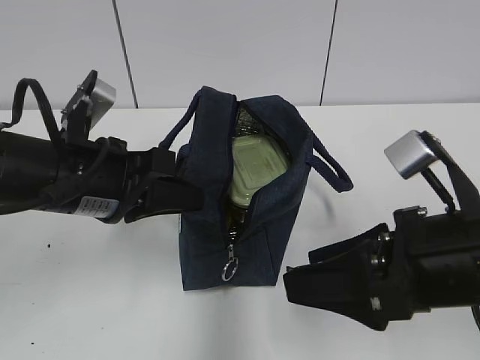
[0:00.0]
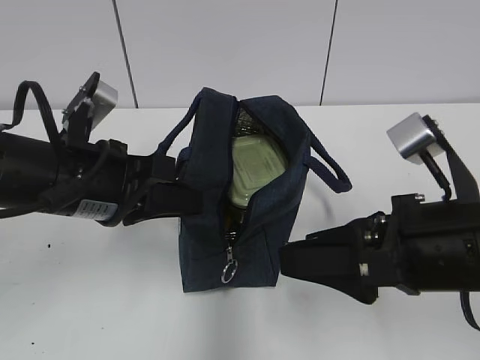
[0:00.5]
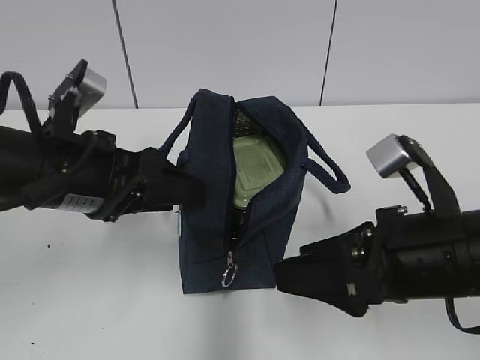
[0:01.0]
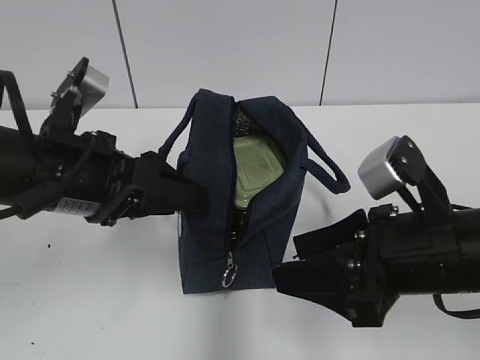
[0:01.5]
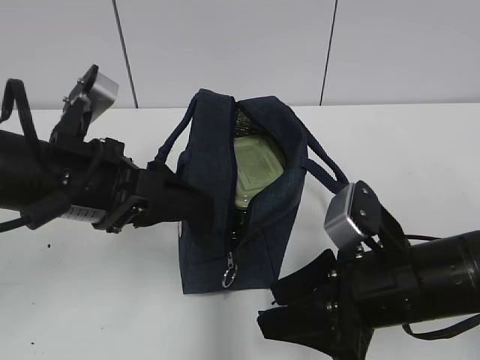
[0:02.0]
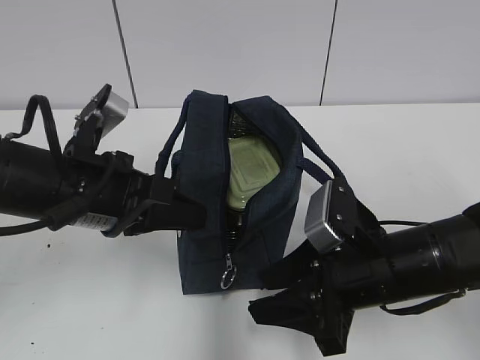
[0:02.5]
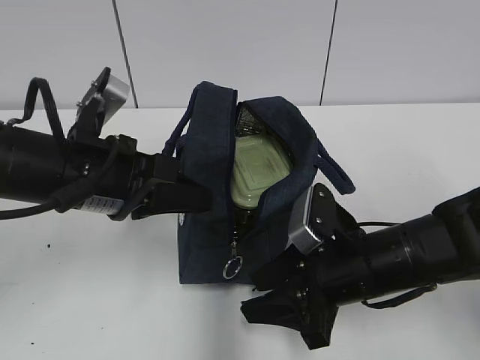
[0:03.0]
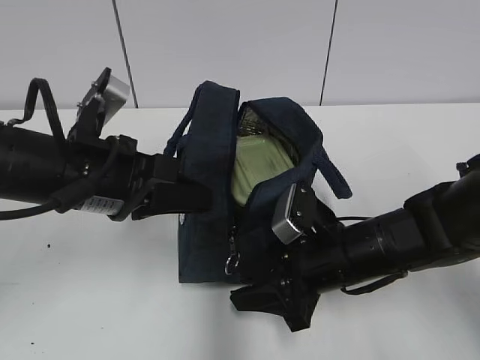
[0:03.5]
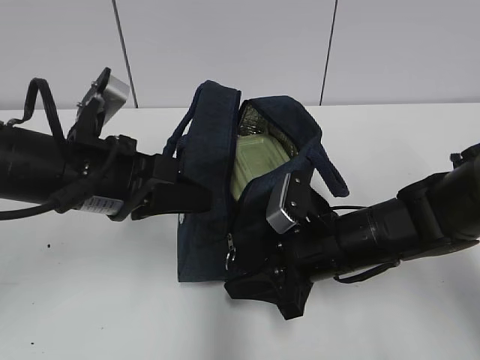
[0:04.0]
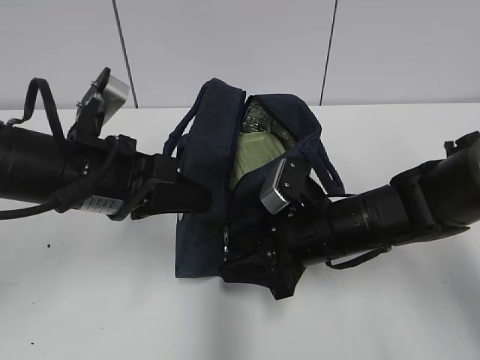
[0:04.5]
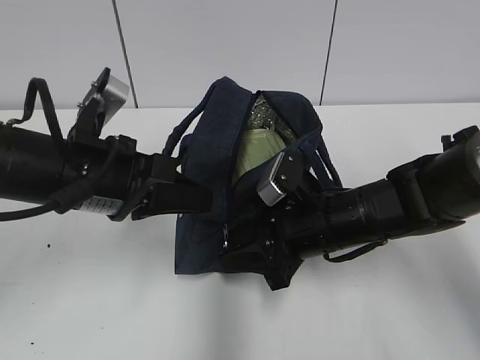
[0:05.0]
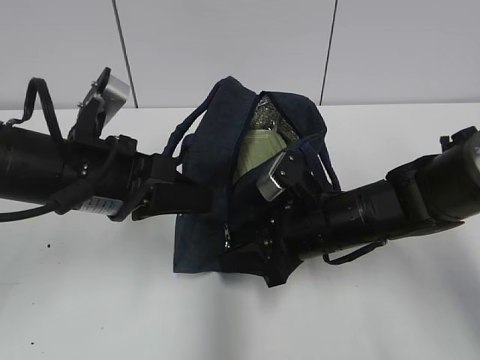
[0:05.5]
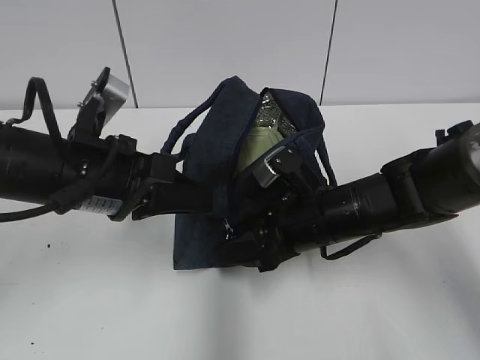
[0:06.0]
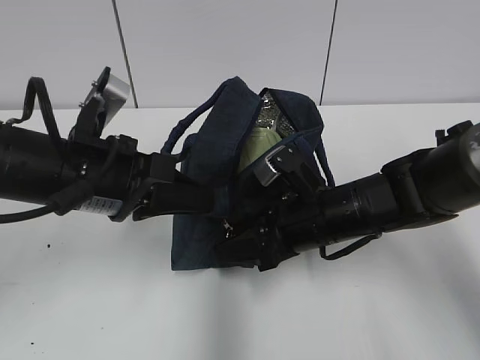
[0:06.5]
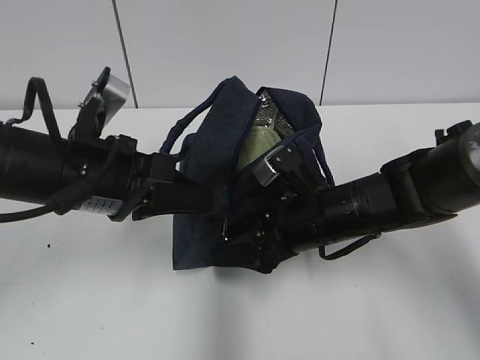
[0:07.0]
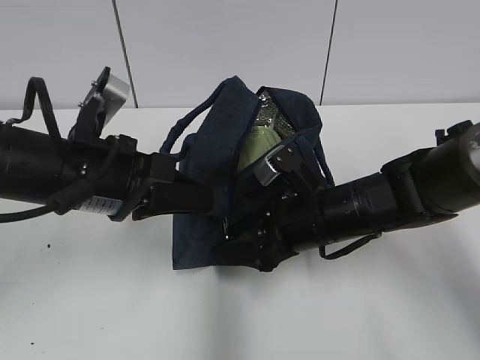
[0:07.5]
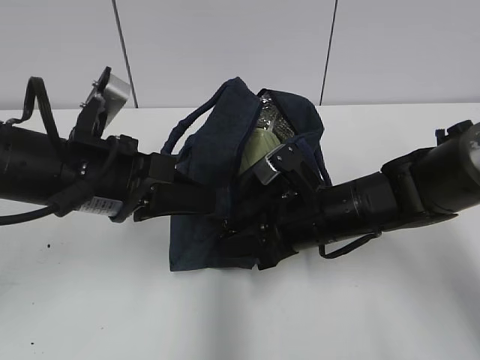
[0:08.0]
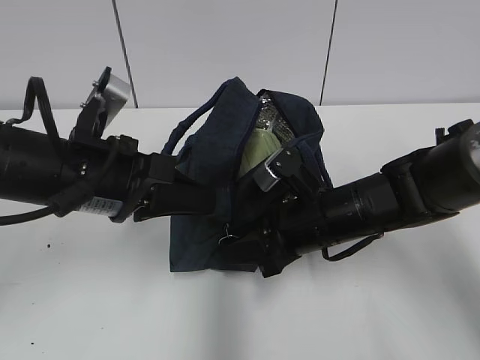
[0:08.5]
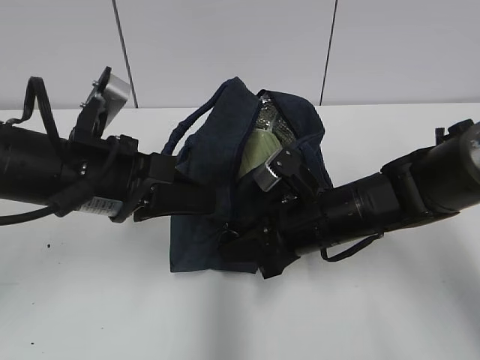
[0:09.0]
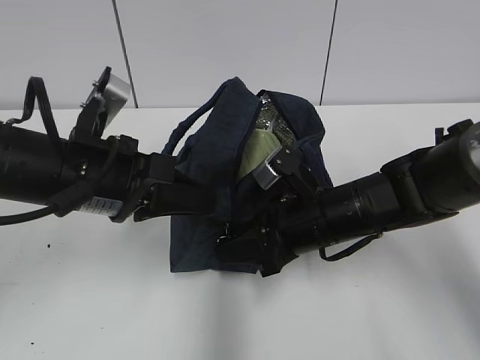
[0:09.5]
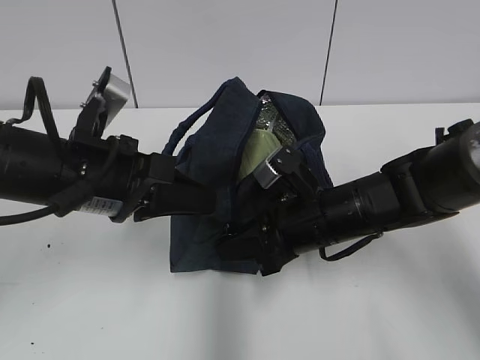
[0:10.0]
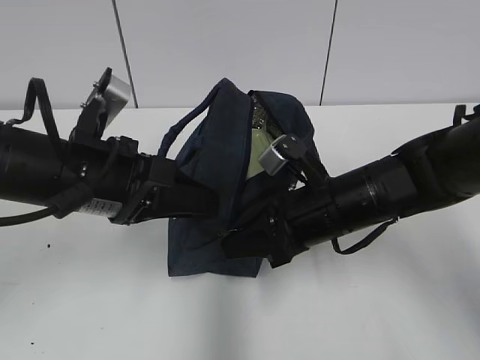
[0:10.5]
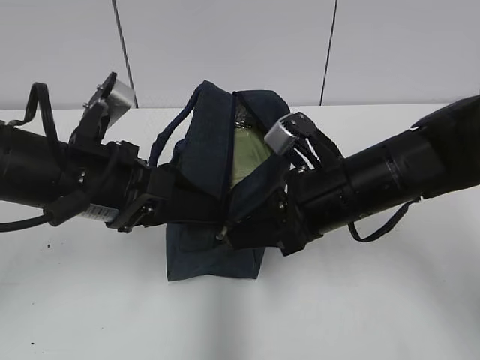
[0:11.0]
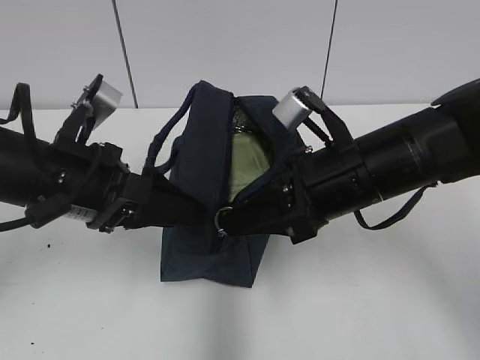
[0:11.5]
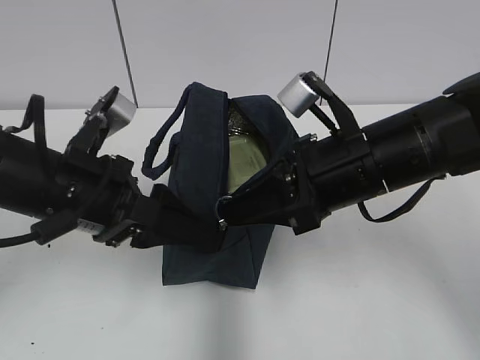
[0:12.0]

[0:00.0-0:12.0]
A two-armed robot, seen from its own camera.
Step, 0:00.0 to 0:02.5: Grab the lunch bag with your left hand.
0:00.0 to 0:02.0: The right gripper heads downward, covering roughly 5 cm; the left gripper opens.
0:02.0 to 0:04.0: The left gripper closes. The right gripper shifts some 10 cm forward.
0:04.0 to 0:06.0: There are only small adjustments of the grippers.
0:06.0 to 0:08.0: Both grippers stay put.
0:08.0 to 0:10.0: Neither gripper changes place.
0:10.0 to 0:12.0: The right gripper shifts approximately 10 cm upward; the left gripper opens its fingers.

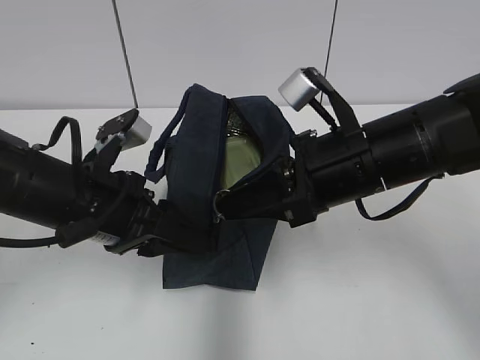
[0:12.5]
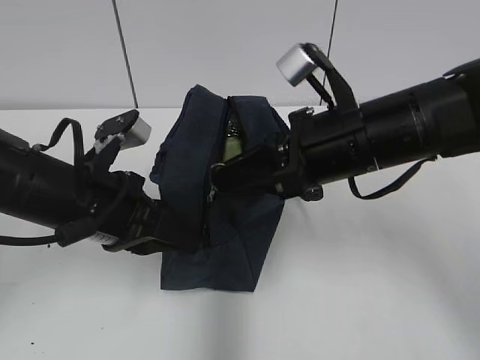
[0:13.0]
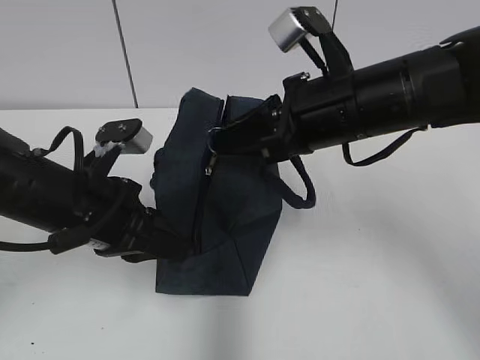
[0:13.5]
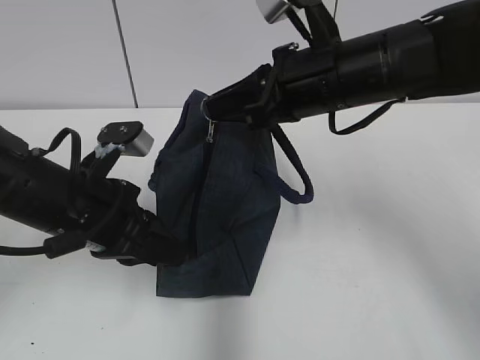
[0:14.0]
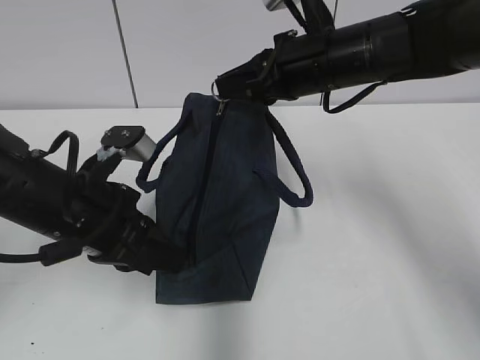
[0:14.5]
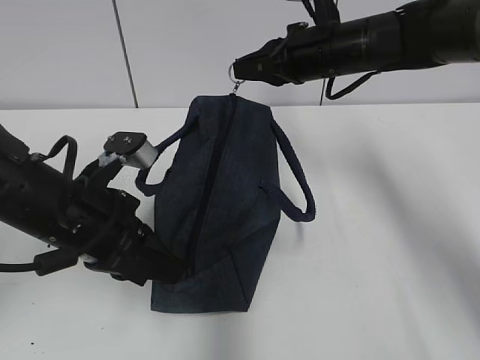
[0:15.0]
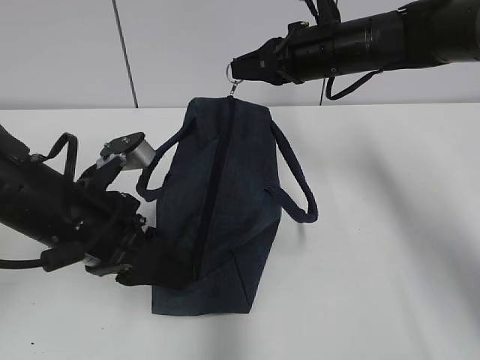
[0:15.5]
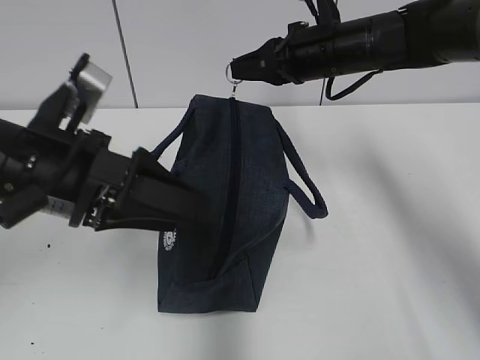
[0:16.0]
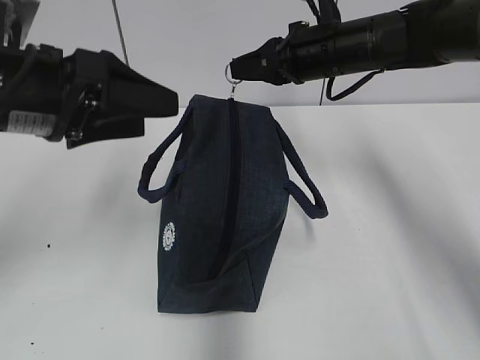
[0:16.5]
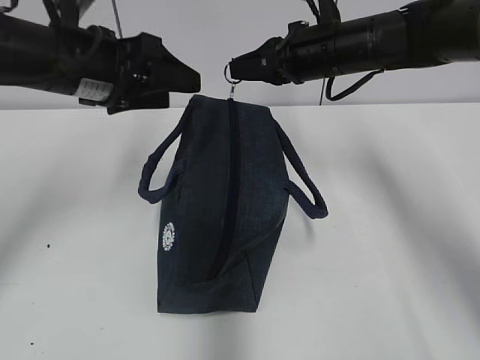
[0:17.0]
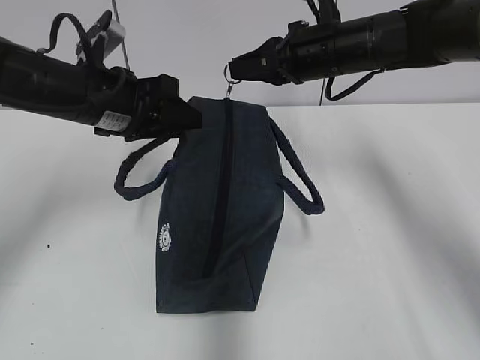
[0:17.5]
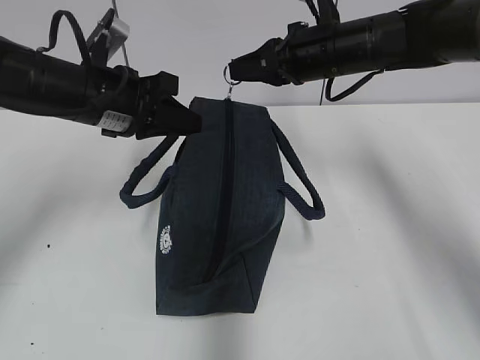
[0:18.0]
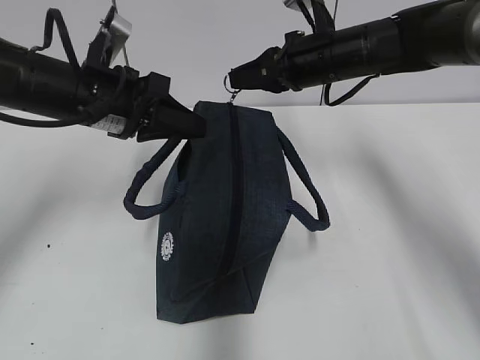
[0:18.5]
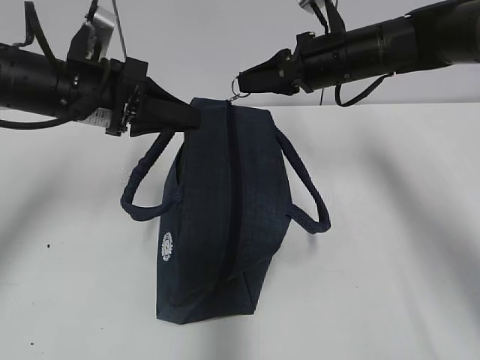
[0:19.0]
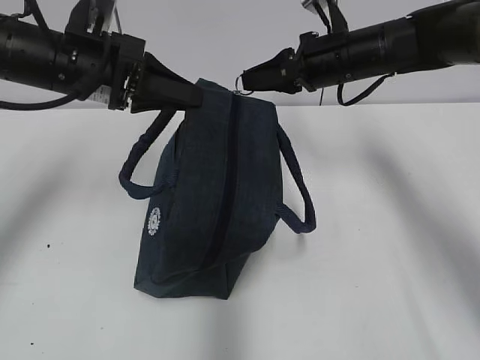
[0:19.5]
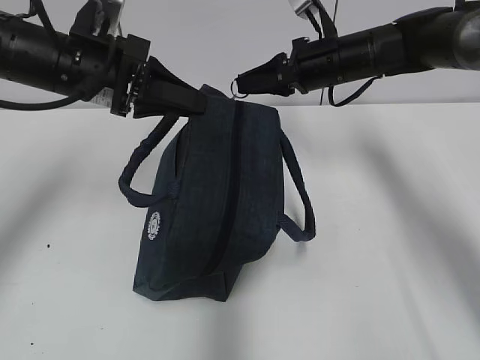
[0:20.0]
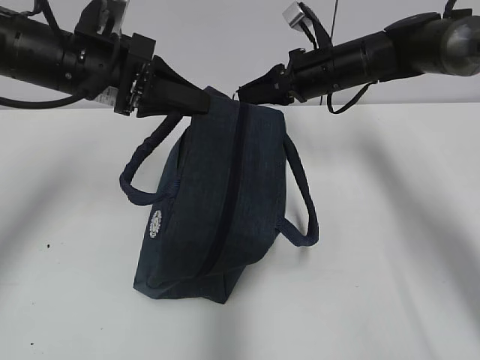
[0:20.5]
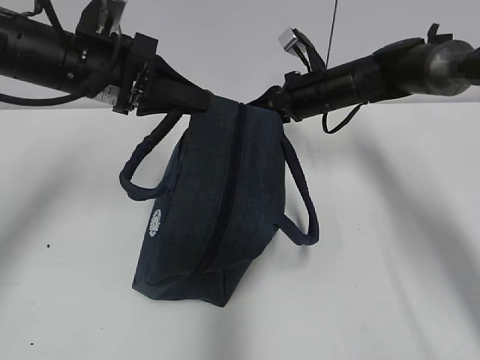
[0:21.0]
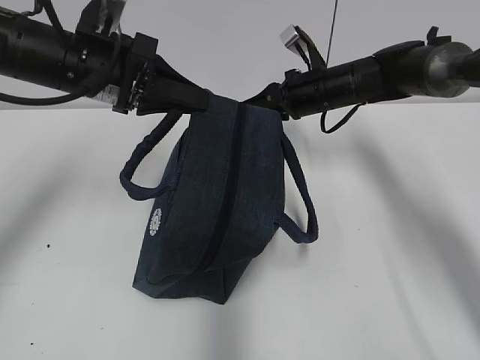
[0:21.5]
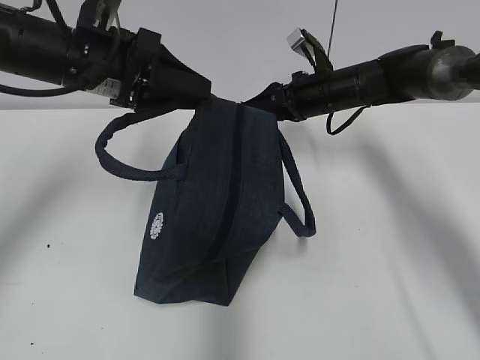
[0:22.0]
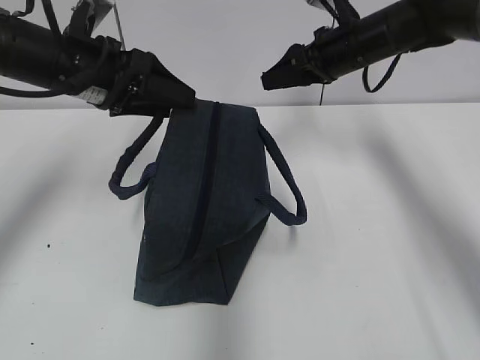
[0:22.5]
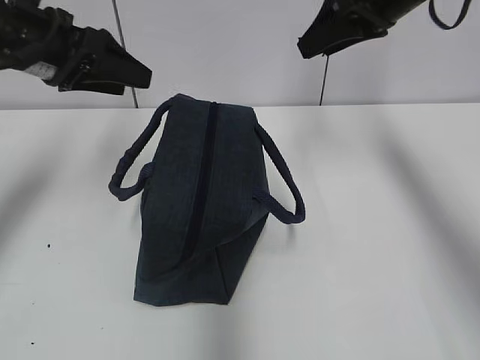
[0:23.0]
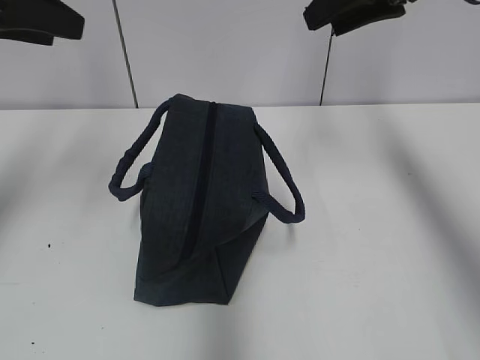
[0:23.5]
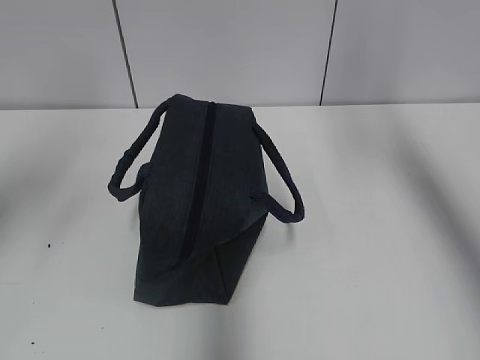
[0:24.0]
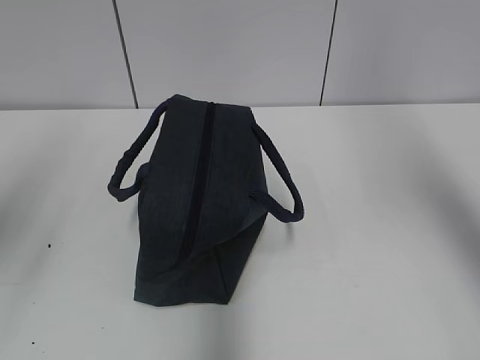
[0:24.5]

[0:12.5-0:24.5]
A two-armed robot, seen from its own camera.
Step, 0:12.5 to 0:21.5: Pull the zipper with your right hand.
0:12.5 to 0:14.5: The right gripper heads forward, covering roughly 10 cm. Meanwhile the left gripper closes.
0:14.5 to 0:16.5: The right gripper goes about 5 cm forward. The left gripper goes about 10 cm upward, and opens up.
0:16.5 to 0:18.5: The left gripper goes some 10 cm forward and downward, and closes its fingers.
0:18.5 to 0:20.5: The right gripper moves about 5 cm.
0:20.5 to 0:22.5: The right gripper opens up. The left gripper opens.
0:22.5 to 0:24.5: The left gripper moves backward, to the left and upward, roughly 25 cm. Meanwhile the right gripper moves backward and upward, about 35 cm.

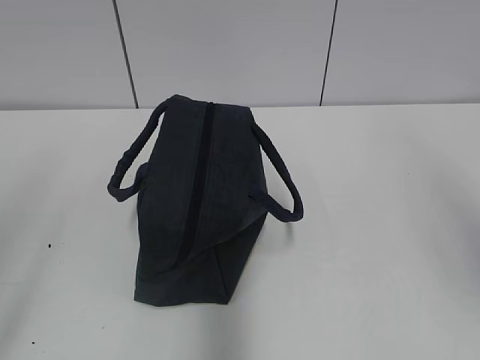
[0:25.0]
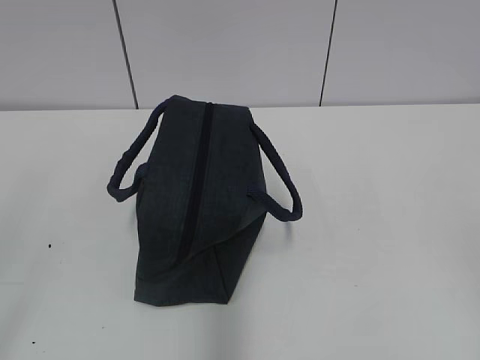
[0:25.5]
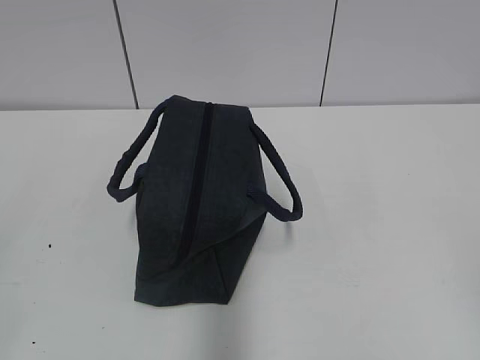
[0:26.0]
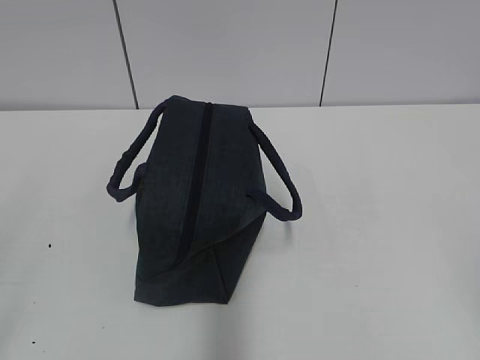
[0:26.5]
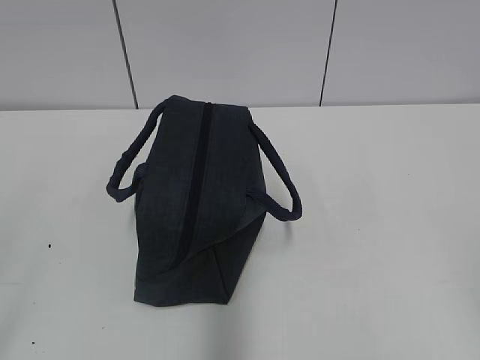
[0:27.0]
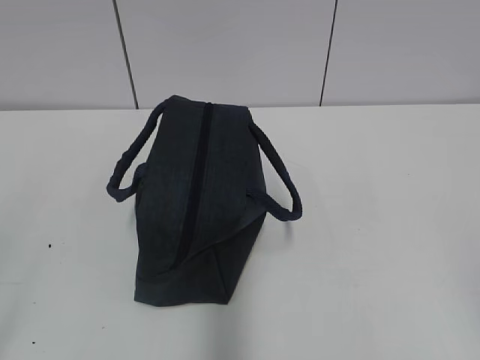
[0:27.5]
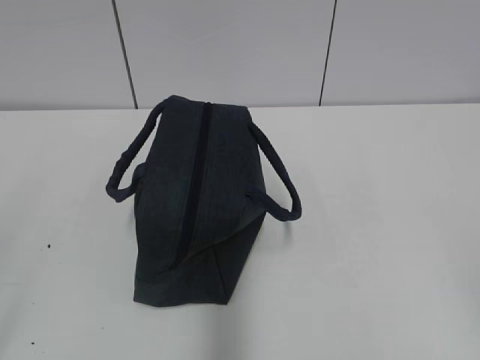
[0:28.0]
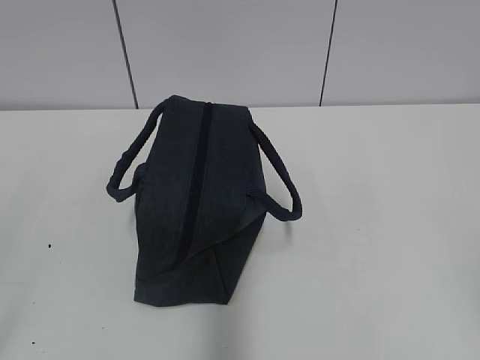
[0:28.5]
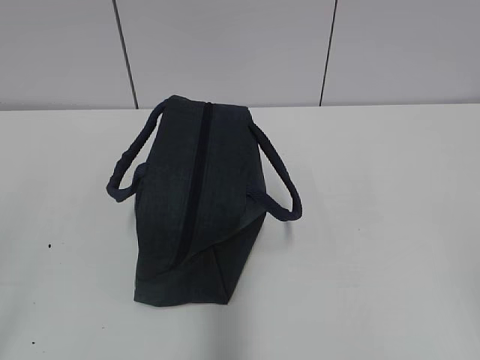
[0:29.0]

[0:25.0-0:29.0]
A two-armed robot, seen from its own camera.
0:25.0 to 0:27.0: The right gripper travels downward and backward by about 20 cm, while the left gripper goes roughly 10 cm backward and downward.
0:27.0 to 0:29.0: Neither gripper changes place.
